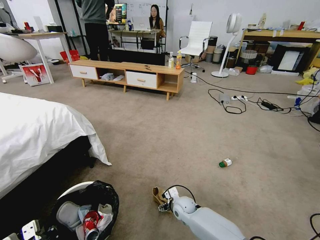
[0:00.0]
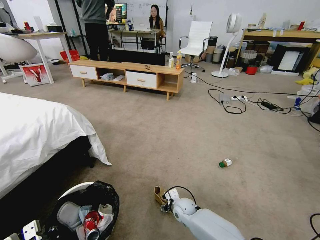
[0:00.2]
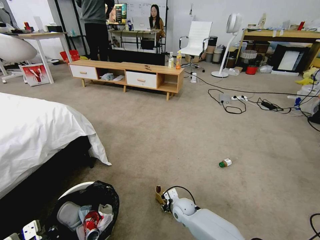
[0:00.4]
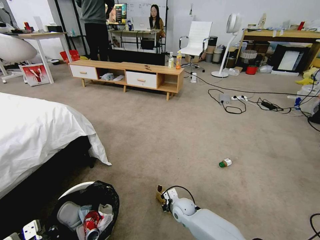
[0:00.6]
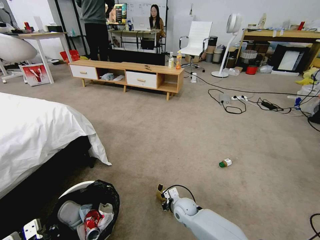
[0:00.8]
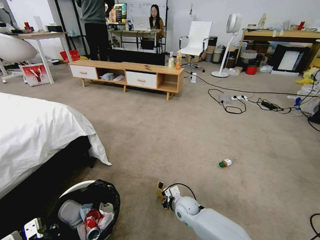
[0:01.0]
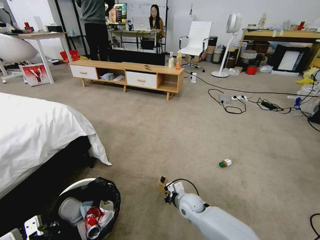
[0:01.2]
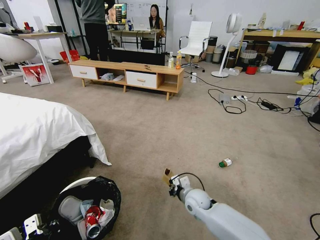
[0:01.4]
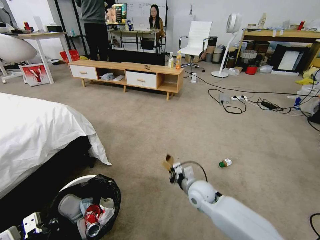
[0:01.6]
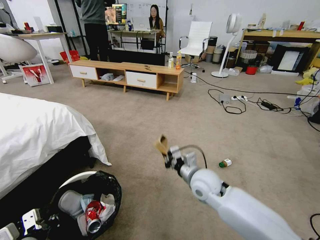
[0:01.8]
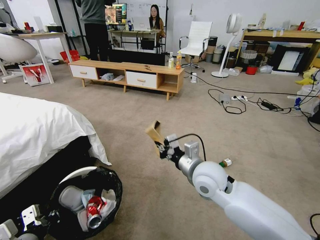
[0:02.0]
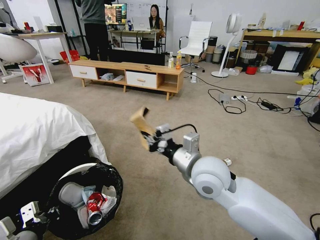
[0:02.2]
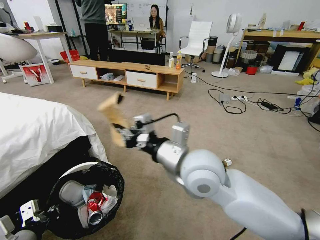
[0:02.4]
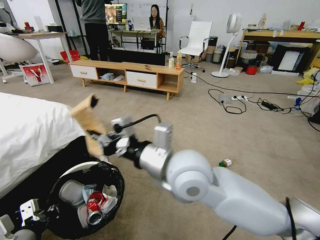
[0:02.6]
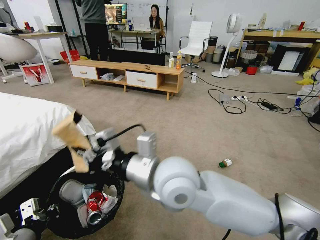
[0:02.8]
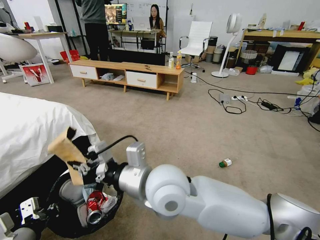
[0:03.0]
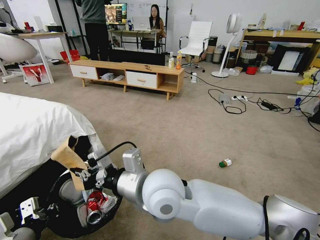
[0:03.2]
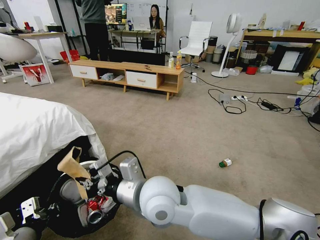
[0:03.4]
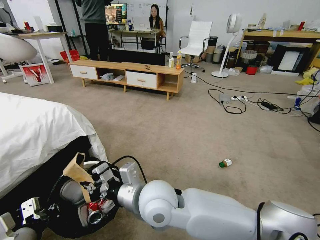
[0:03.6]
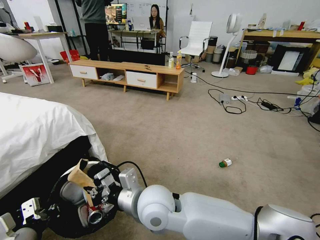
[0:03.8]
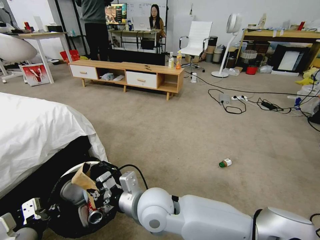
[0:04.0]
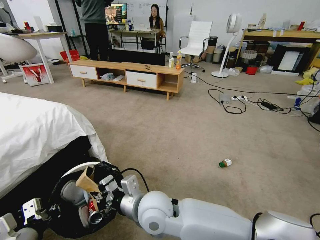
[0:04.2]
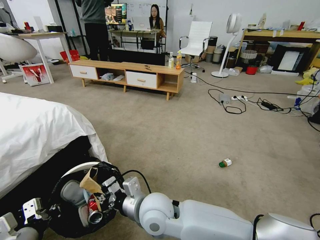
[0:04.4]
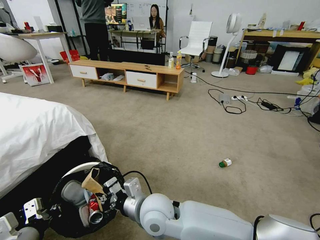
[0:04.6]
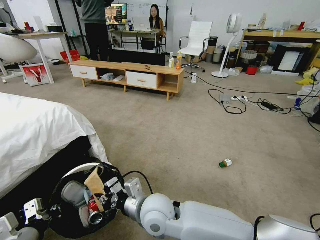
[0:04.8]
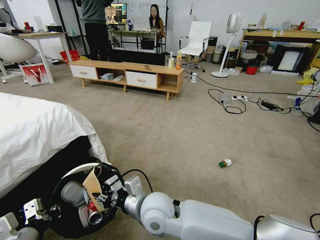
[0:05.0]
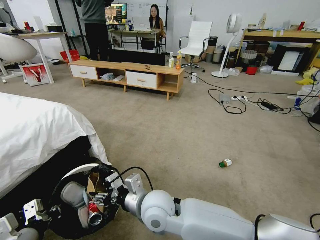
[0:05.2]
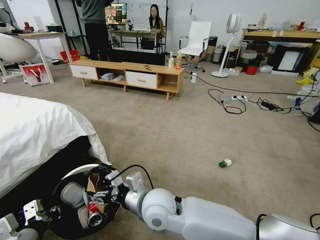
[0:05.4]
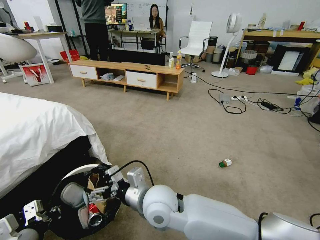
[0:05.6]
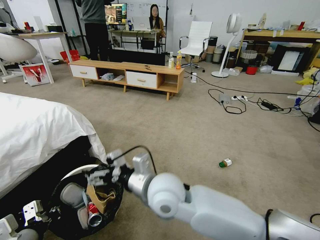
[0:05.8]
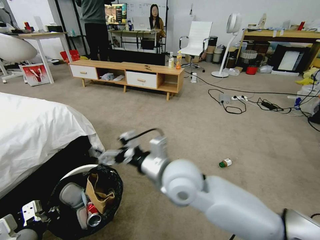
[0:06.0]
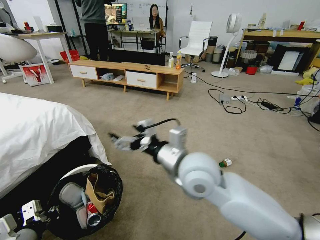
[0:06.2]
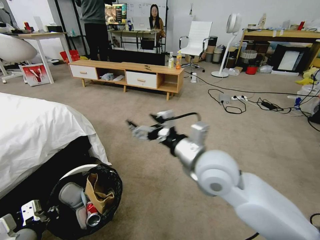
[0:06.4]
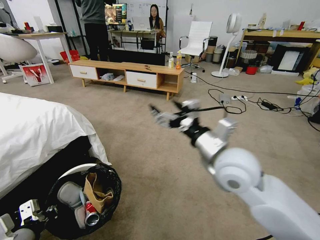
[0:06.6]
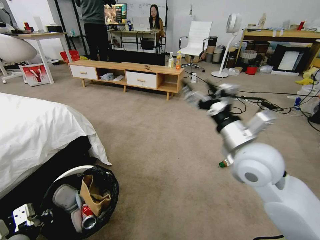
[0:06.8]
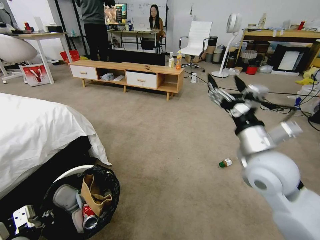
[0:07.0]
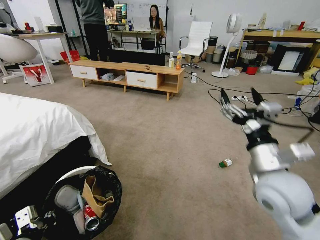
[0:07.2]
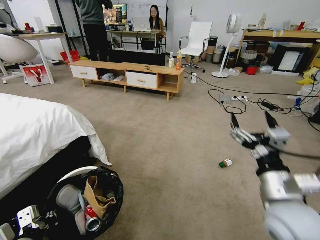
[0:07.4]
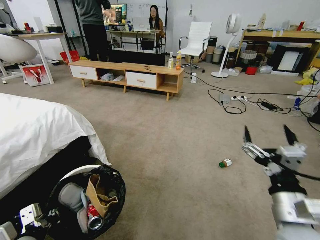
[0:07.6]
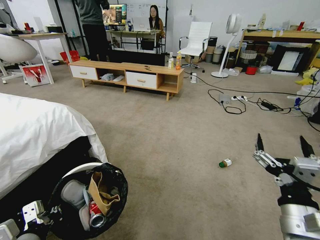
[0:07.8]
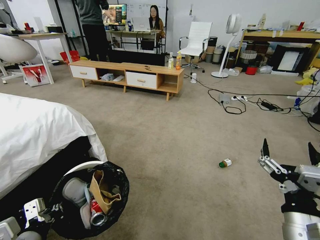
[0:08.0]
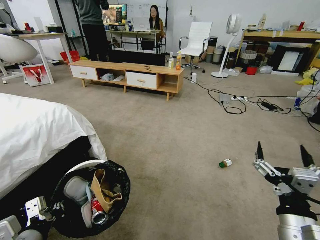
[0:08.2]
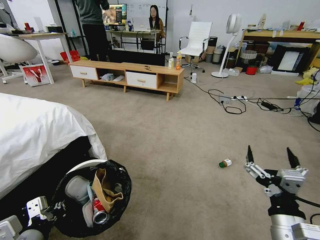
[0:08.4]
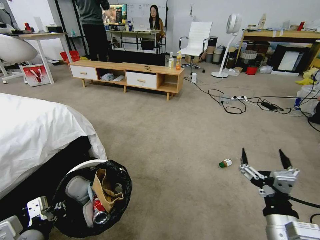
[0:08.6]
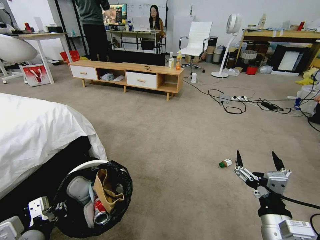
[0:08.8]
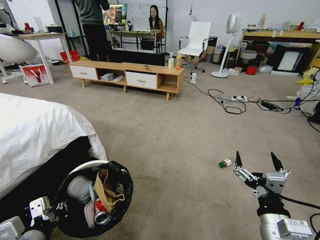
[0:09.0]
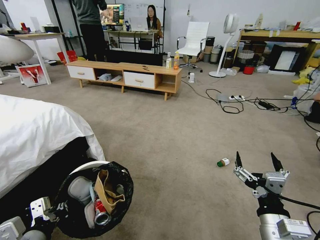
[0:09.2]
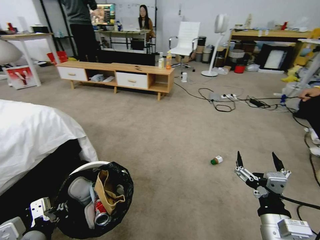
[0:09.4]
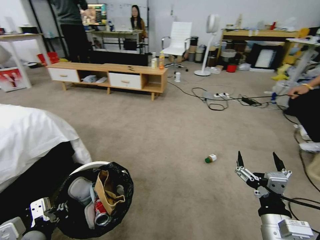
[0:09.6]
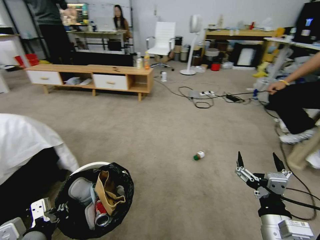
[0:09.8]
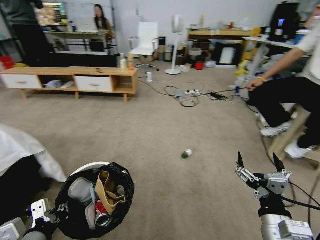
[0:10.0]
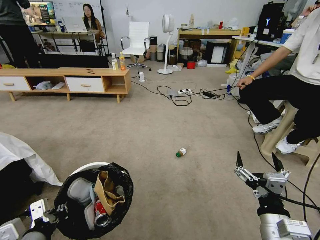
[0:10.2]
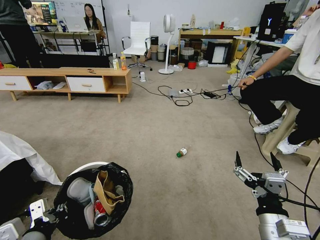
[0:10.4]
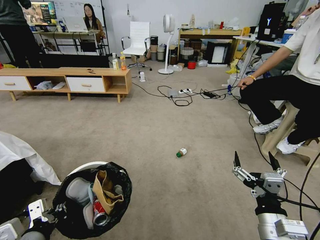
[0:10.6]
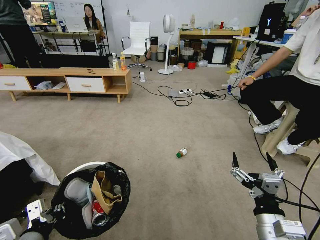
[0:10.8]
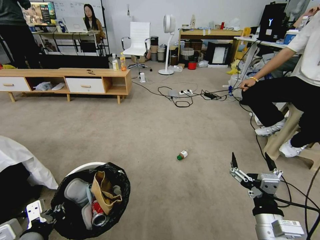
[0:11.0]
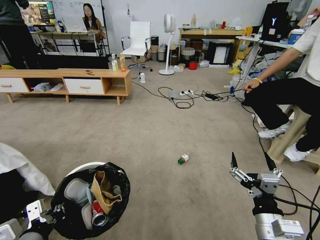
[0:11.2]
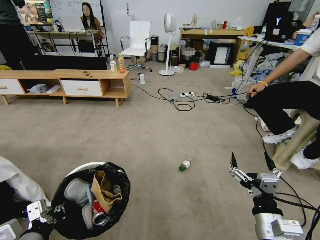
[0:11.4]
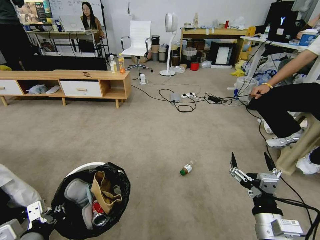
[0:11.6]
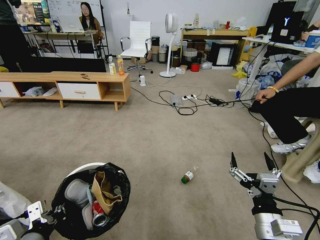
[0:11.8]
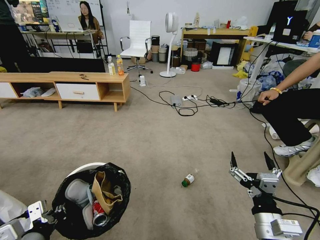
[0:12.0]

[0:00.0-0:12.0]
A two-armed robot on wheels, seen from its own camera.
Task of the whole recording: Pick up the trash bin and place the garbage on the floor into it.
0:00.0 to 0:01.6: The right gripper is displaced upward by about 15 cm, and closes up.
0:01.6 to 0:03.0: The left gripper moves upward, about 5 cm, while the right gripper shifts roughly 30 cm upward, to the left and backward.
0:03.0 to 0:04.4: The right gripper shifts some 15 cm downward.
0:04.4 to 0:06.0: The right gripper goes approximately 10 cm upward and to the right, and opens.
0:06.0 to 0:07.6: The right gripper heads to the right and backward, covering some 25 cm.
0:07.6 to 0:09.0: The right gripper goes about 5 cm downward.

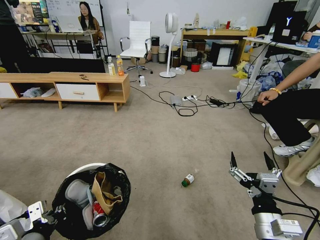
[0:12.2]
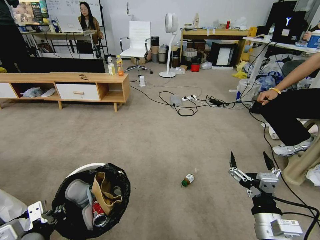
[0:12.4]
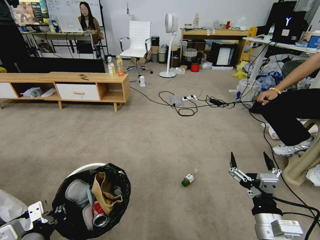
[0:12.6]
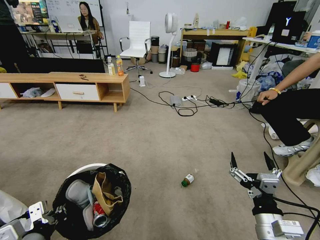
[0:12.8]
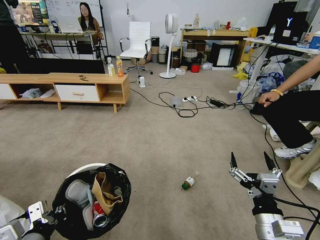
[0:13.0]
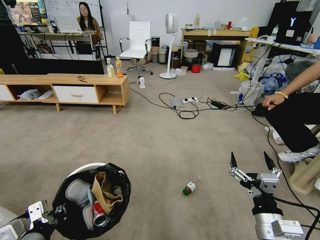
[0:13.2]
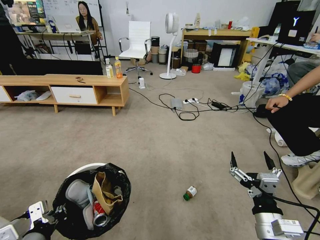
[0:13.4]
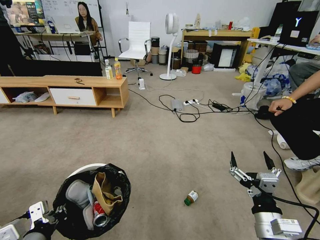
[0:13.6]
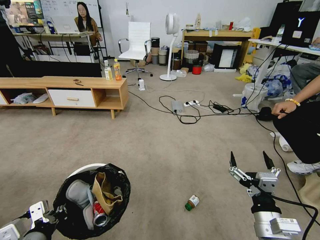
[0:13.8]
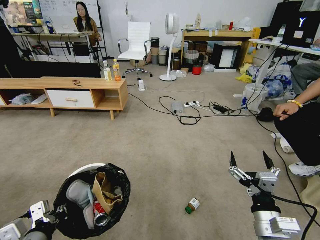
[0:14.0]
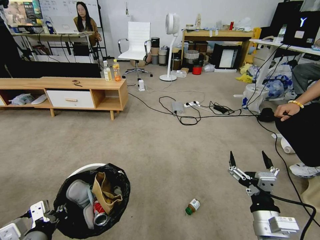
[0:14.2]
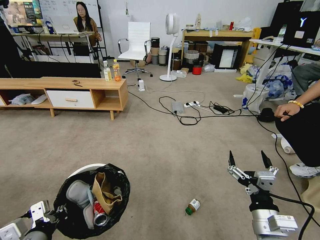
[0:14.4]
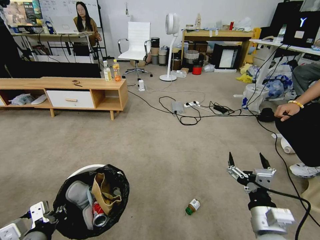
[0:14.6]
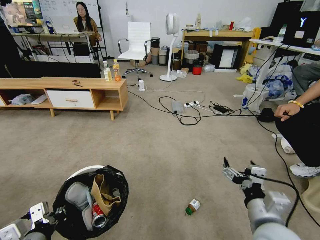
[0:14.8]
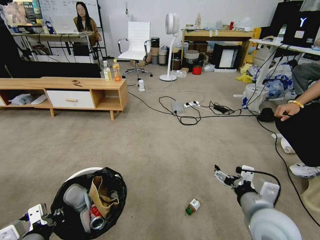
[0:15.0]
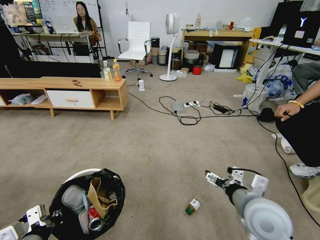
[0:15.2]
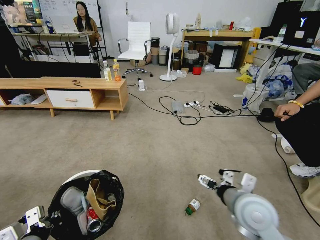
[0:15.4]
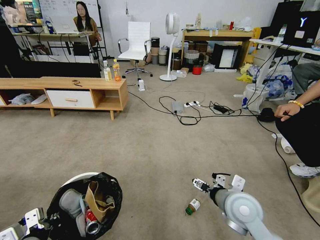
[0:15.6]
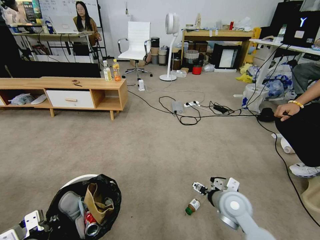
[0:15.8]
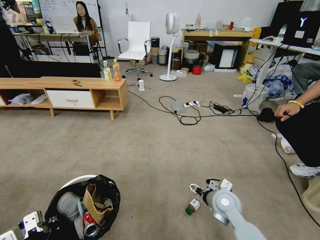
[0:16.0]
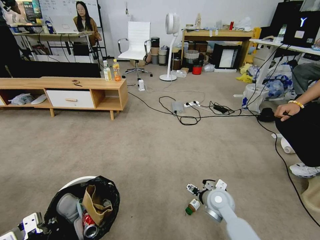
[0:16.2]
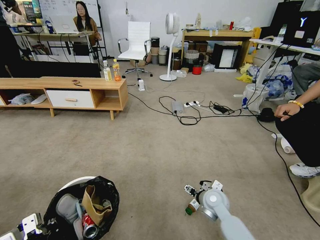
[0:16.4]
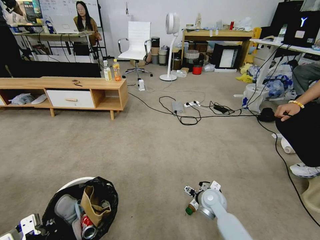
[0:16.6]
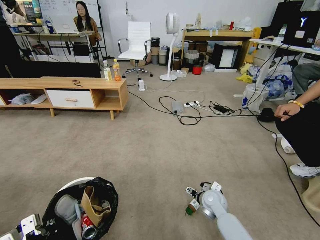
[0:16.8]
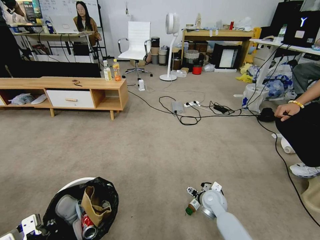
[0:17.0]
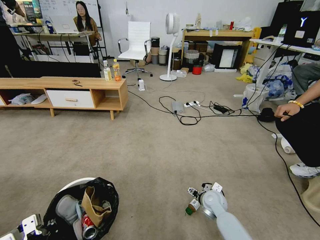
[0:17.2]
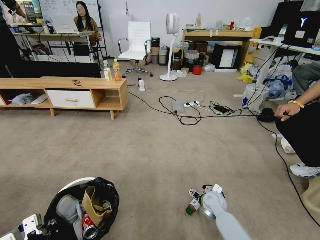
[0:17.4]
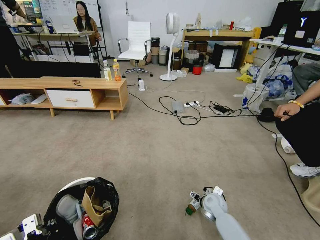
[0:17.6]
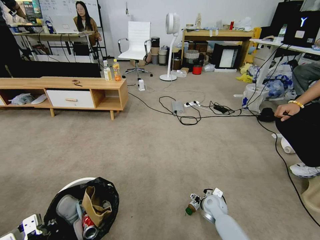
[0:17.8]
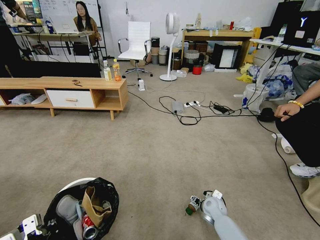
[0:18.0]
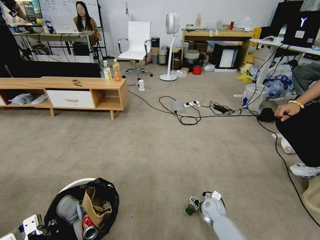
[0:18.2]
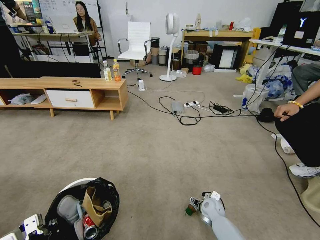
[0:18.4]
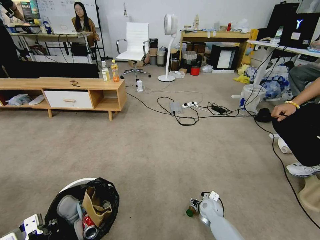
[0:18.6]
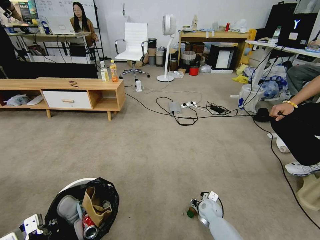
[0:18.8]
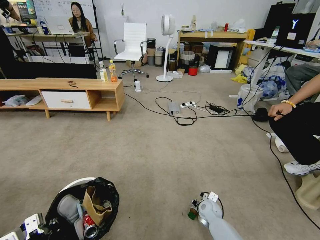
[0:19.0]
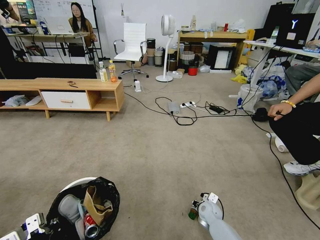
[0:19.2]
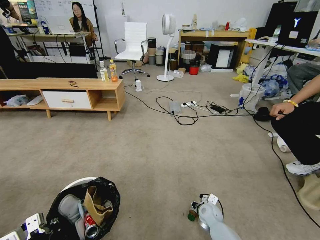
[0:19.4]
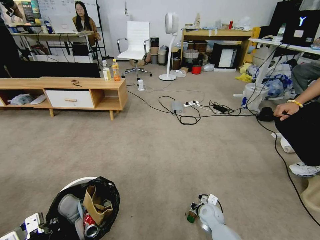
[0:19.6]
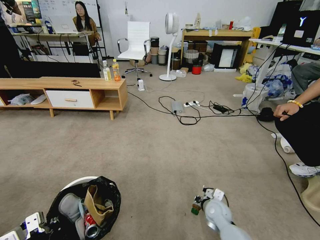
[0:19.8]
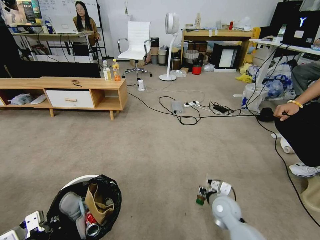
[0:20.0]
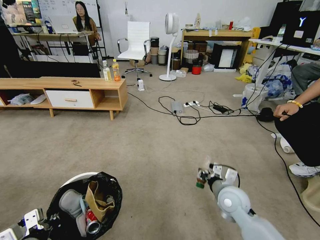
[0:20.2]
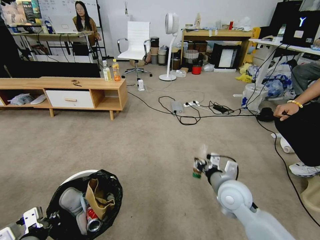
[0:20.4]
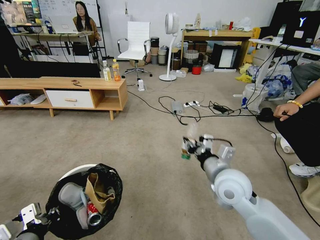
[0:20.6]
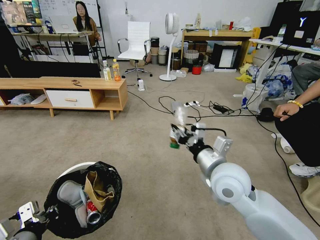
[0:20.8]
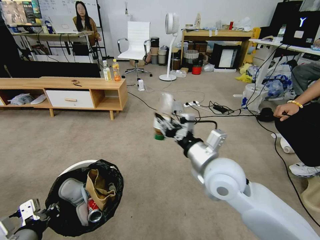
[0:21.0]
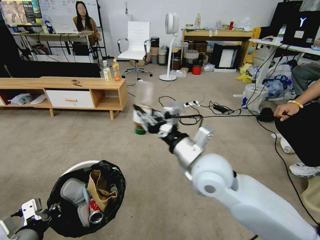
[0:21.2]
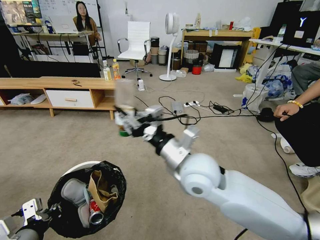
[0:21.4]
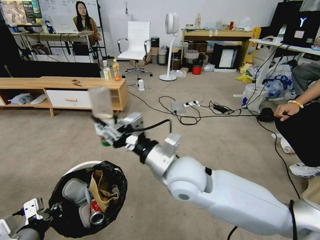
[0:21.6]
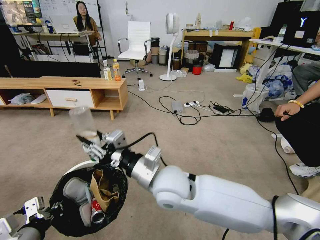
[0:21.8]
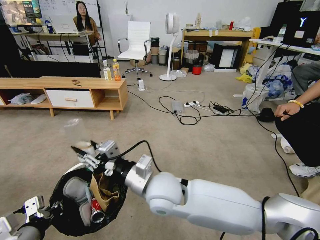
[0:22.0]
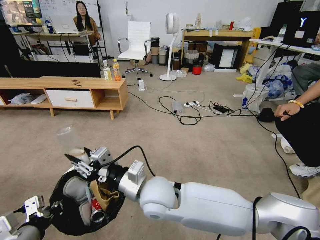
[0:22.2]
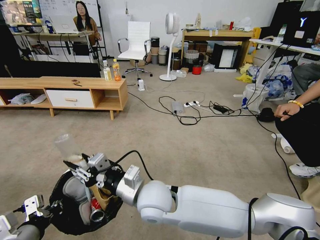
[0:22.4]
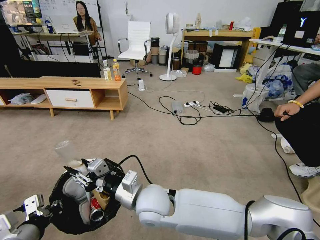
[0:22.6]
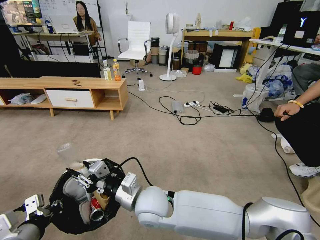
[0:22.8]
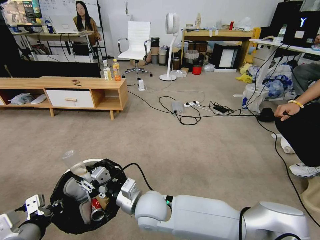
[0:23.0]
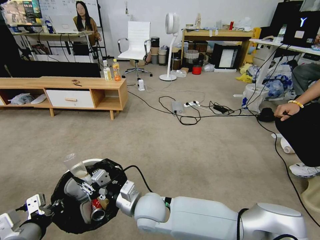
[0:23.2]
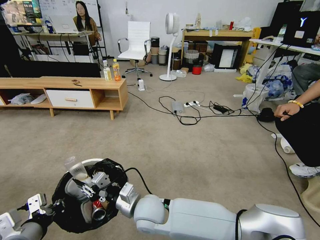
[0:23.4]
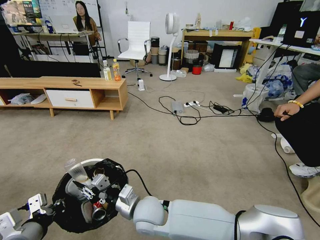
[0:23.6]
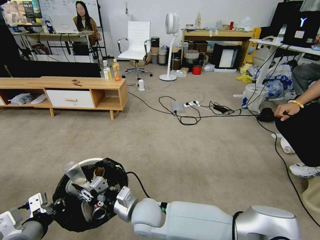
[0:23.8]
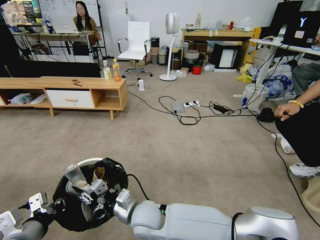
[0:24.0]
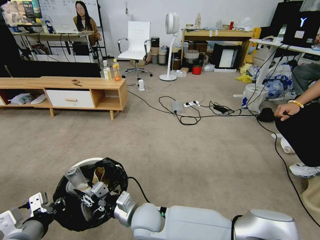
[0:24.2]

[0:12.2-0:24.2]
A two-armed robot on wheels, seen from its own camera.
Task of the whole recording: Pick up the trash bin and place the garbage on the floor into it.
0:13.8 to 0:15.2: The right gripper heads forward and upward, covering about 10 cm.
0:15.2 to 0:16.6: The right gripper heads downward and forward, covering some 25 cm.
0:16.6 to 0:18.2: The right gripper goes roughly 10 cm downward.
0:18.2 to 0:19.8: The right gripper moves upward, roughly 5 cm, and closes.
0:19.8 to 0:21.2: The left gripper is displaced upward by some 5 cm. The right gripper travels upward by some 30 cm.
0:21.2 to 0:22.6: The right gripper is displaced to the left and downward by approximately 20 cm.
0:22.6 to 0:24.2: The right gripper heads downward, covering approximately 10 cm.
